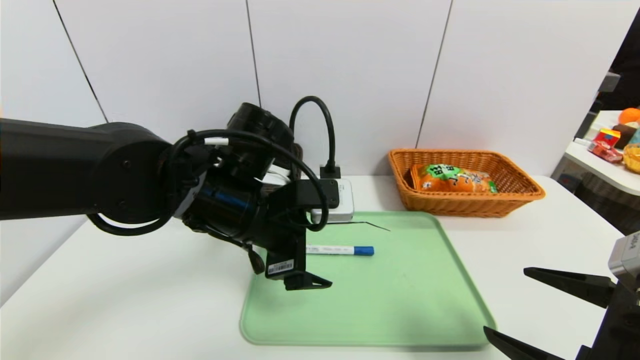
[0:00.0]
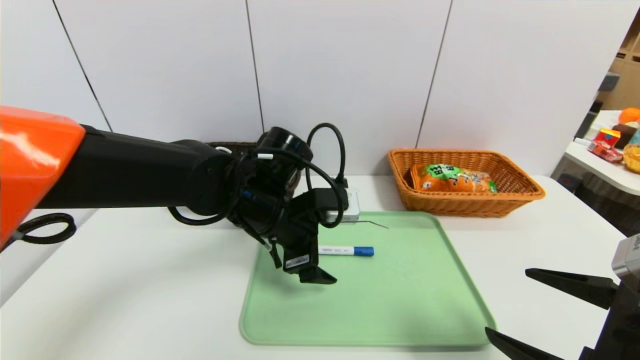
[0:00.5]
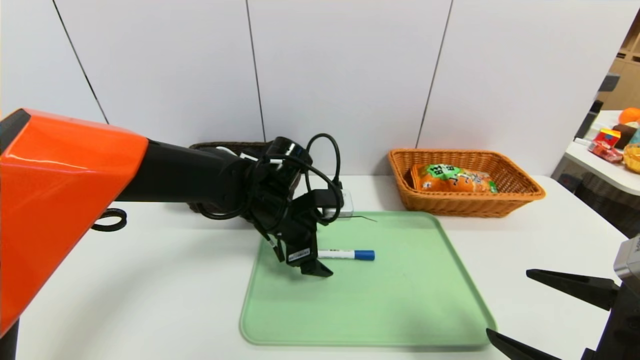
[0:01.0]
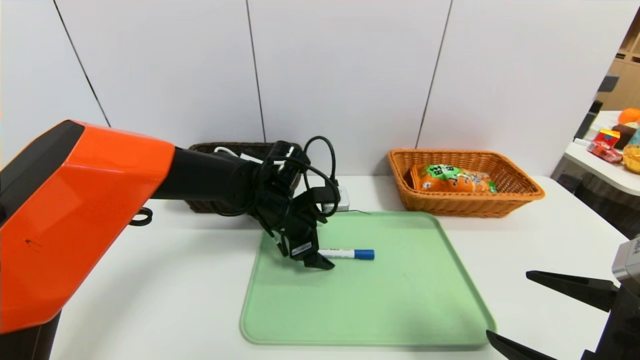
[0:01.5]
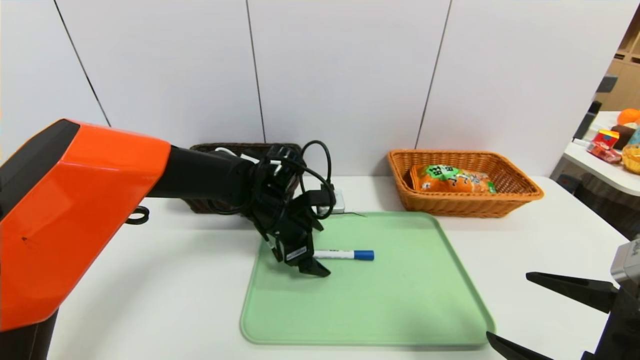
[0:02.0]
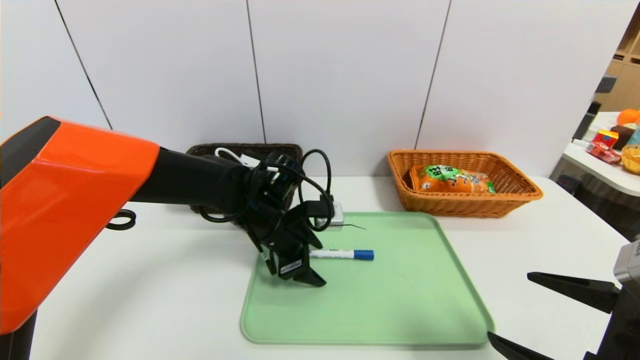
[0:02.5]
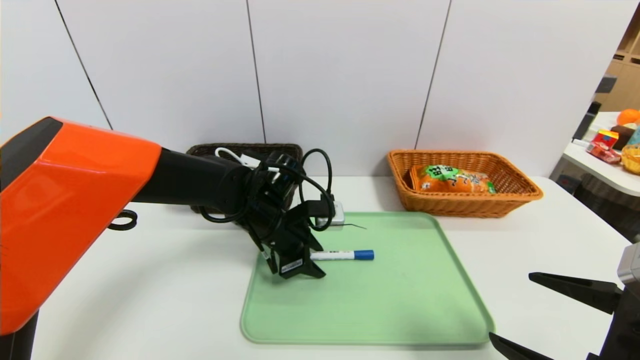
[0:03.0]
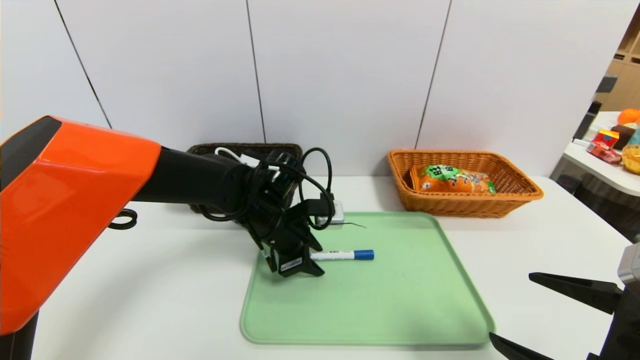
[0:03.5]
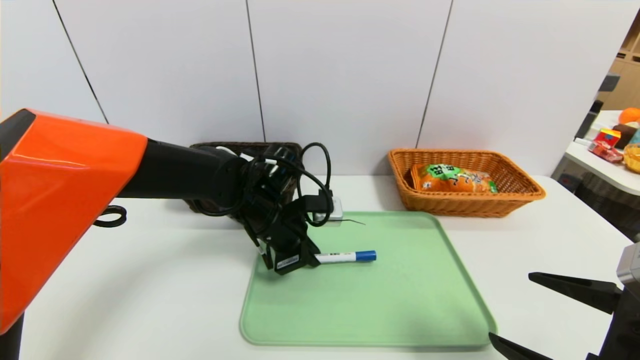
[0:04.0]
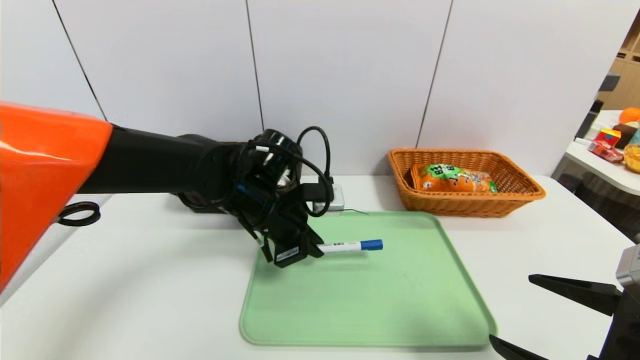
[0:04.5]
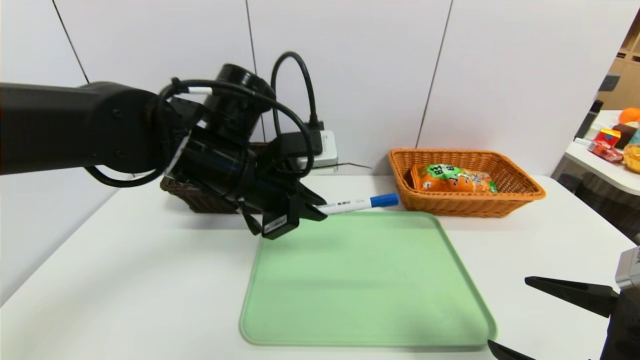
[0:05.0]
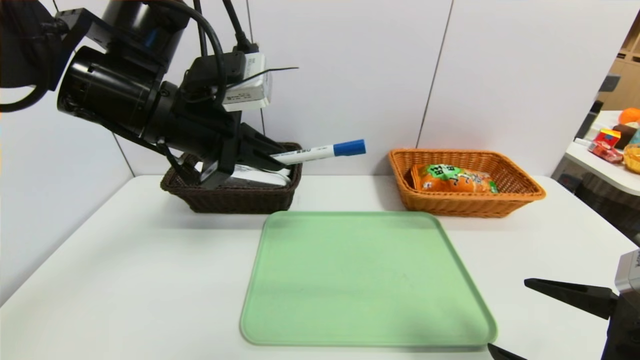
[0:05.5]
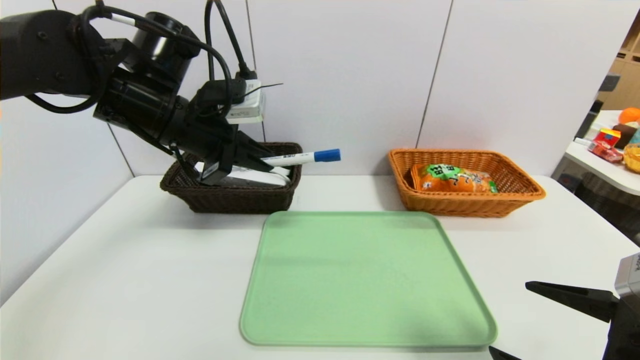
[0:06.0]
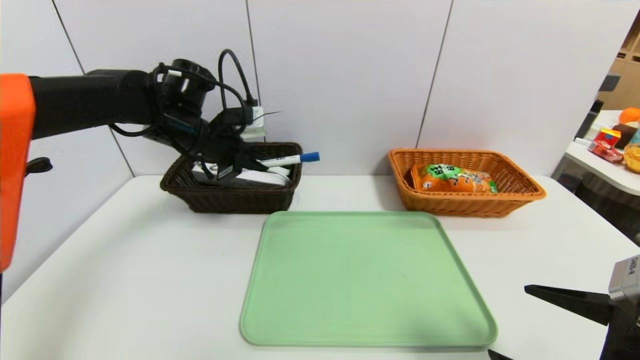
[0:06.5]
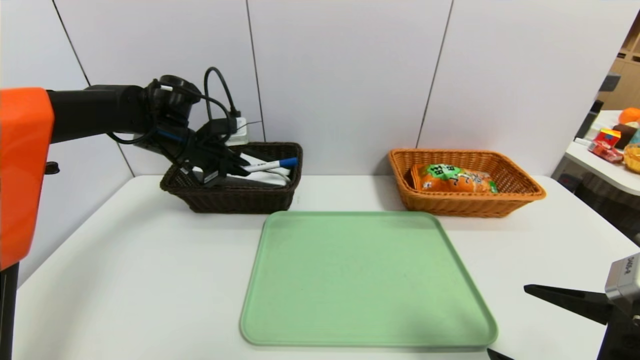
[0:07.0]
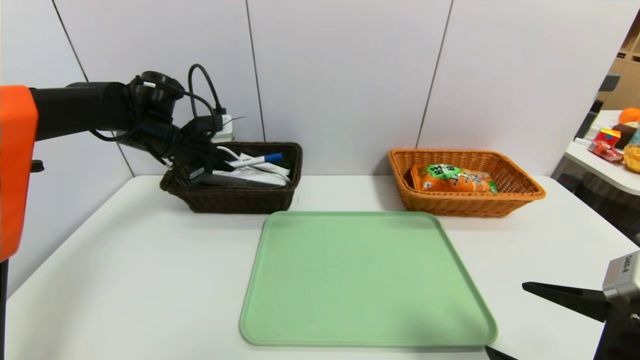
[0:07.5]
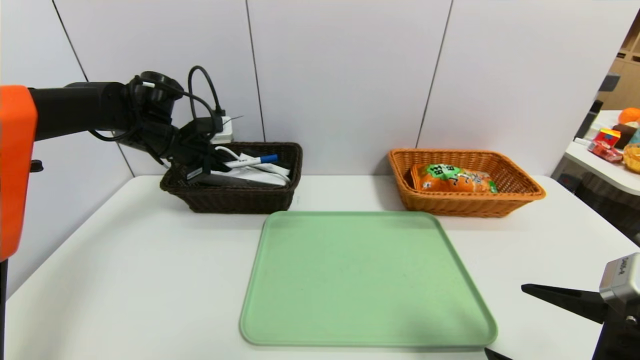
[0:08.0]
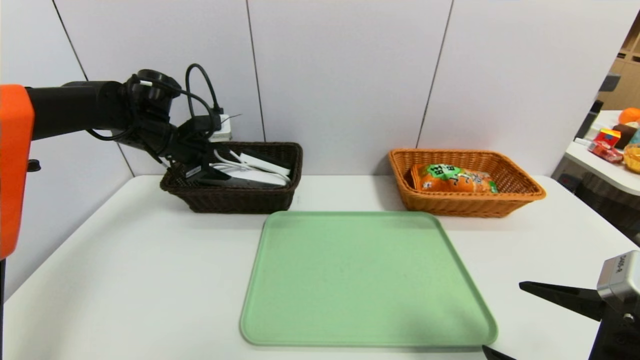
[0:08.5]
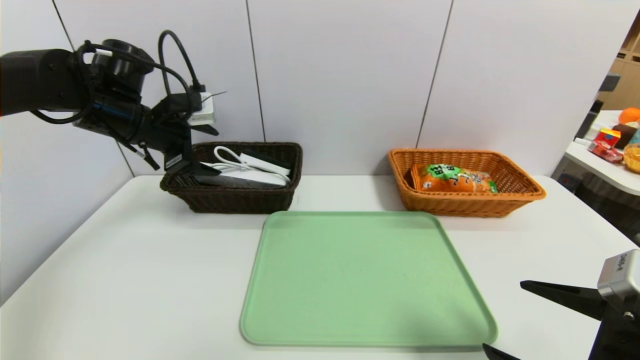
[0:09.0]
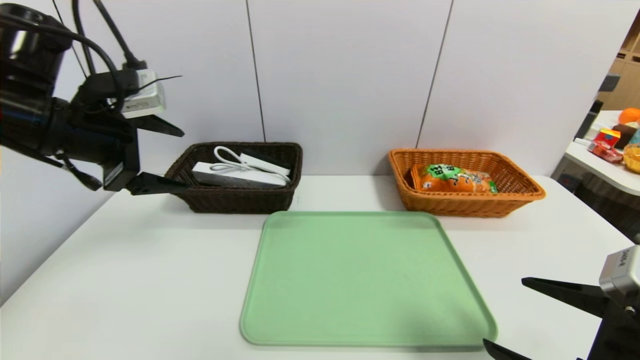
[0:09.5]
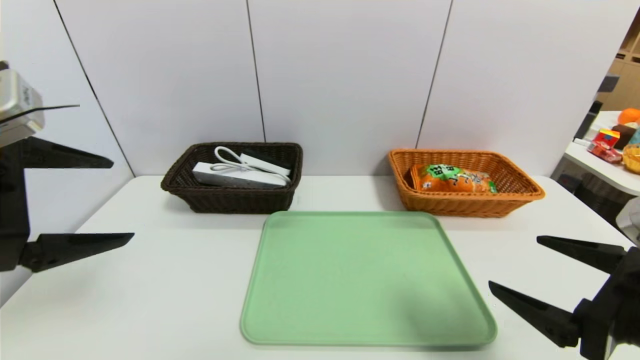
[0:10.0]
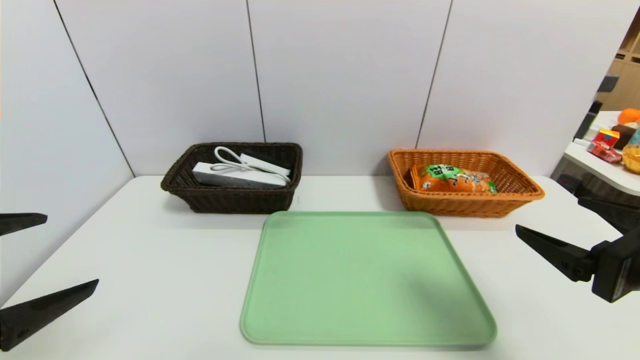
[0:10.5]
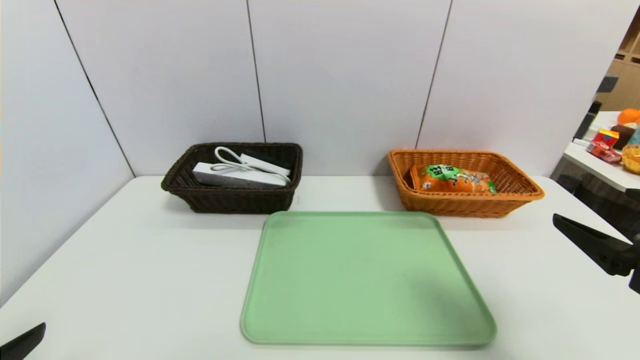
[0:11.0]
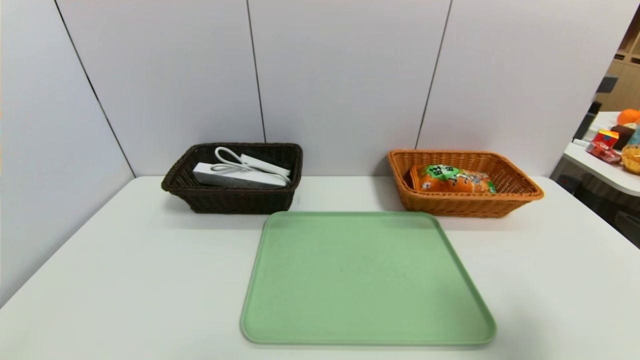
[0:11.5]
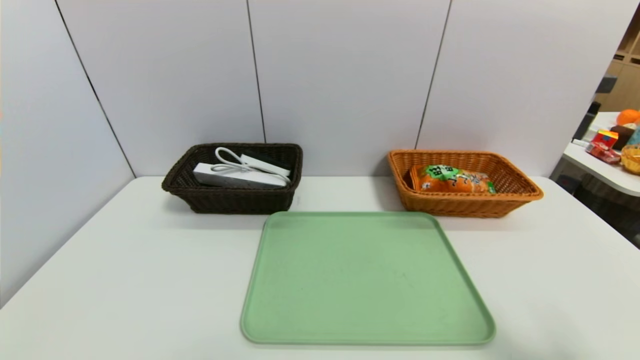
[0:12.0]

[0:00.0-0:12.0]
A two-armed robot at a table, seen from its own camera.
Task of the whole recording: place the food in the right basket with the right gripper, and place the non food items in the left basket with the left gripper.
Step, 0:00.0 to 0:09.0: Grasp the blue marker and put it in the left basket.
0:00.0 to 0:02.0: The left gripper travels forward and downward by some 15 cm.
0:02.0 to 0:04.0: The left gripper closes its fingers.
0:04.0 to 0:06.0: The left gripper heads upward and to the left, covering some 20 cm.
0:06.0 to 0:08.0: The left gripper goes some 15 cm forward, to the left and downward.
0:08.0 to 0:10.0: The left gripper goes some 30 cm backward, and opens its fingers.
0:10.0 to 0:12.0: The left gripper goes about 20 cm backward and downward, while the right gripper heads backward and to the right, covering some 10 cm.
